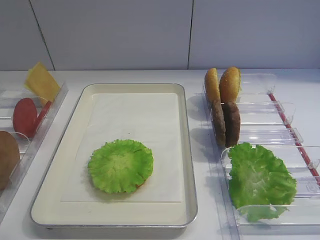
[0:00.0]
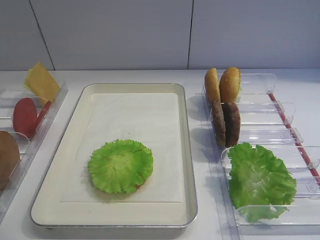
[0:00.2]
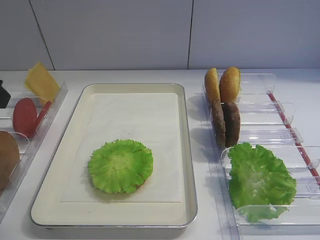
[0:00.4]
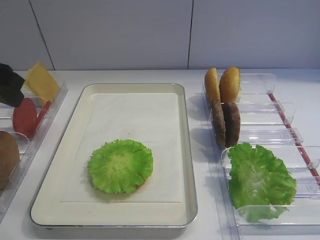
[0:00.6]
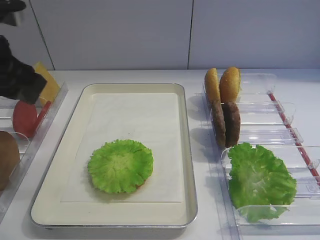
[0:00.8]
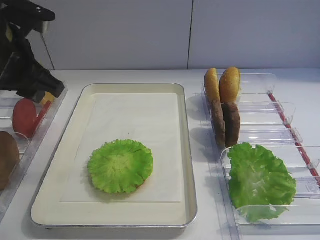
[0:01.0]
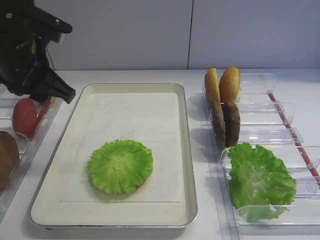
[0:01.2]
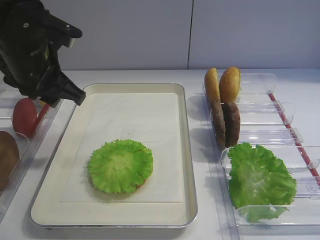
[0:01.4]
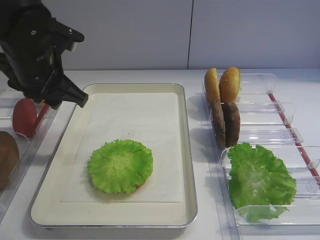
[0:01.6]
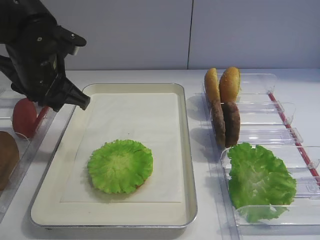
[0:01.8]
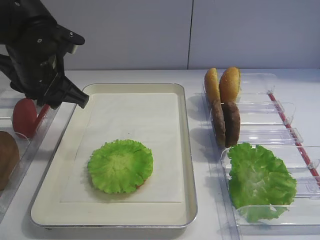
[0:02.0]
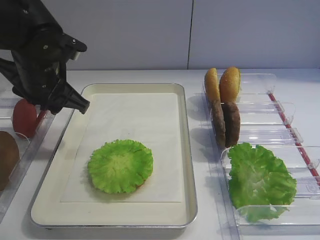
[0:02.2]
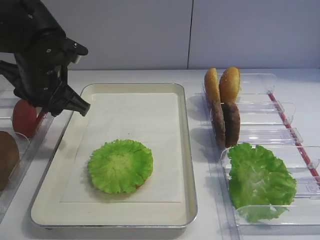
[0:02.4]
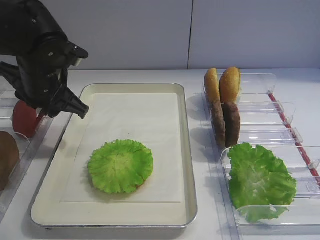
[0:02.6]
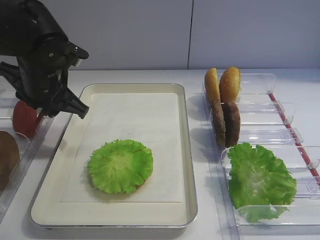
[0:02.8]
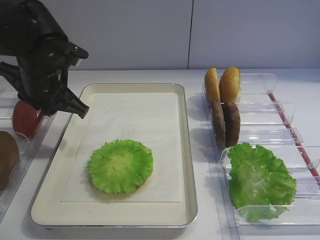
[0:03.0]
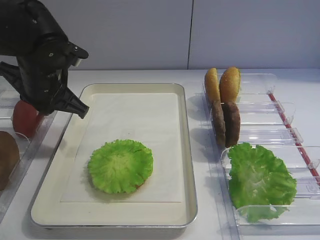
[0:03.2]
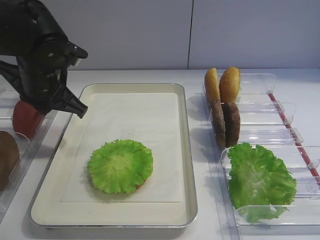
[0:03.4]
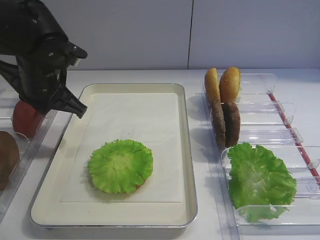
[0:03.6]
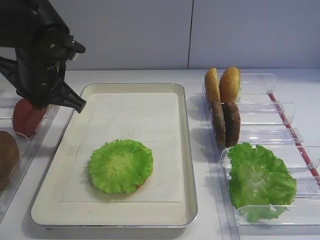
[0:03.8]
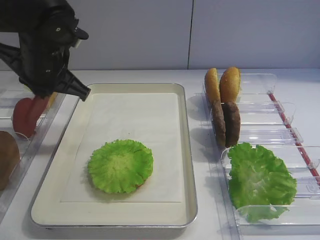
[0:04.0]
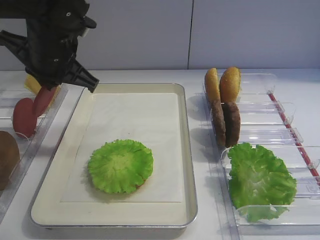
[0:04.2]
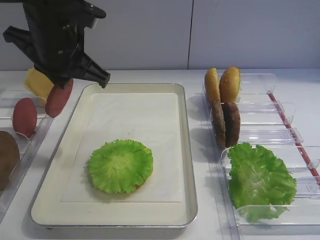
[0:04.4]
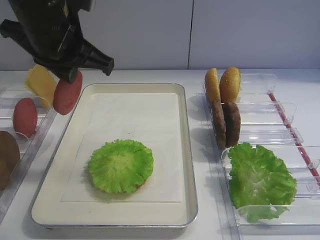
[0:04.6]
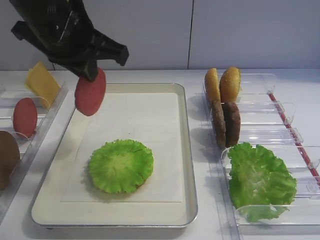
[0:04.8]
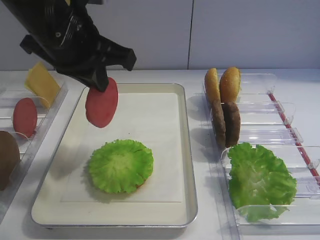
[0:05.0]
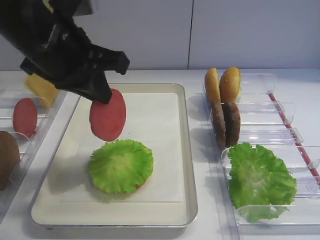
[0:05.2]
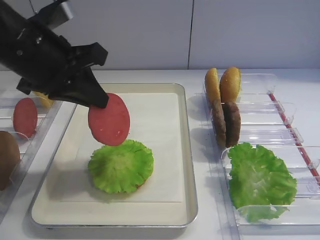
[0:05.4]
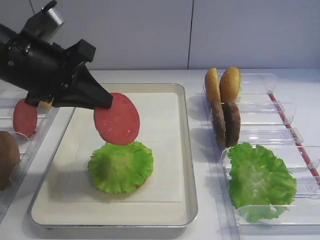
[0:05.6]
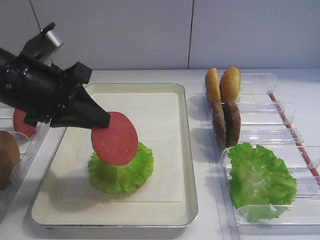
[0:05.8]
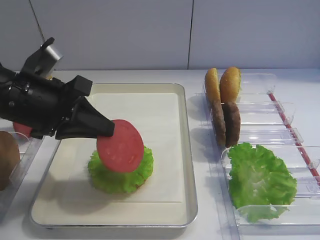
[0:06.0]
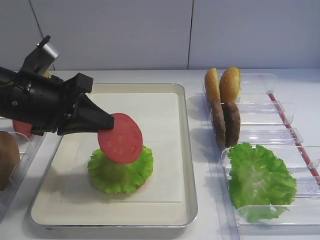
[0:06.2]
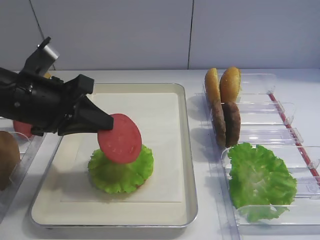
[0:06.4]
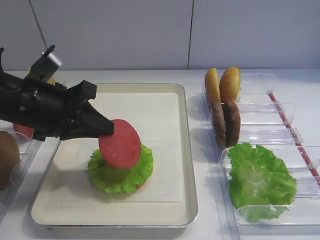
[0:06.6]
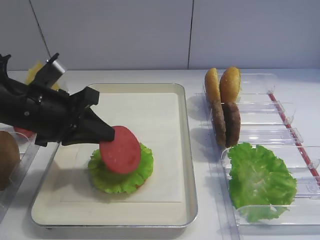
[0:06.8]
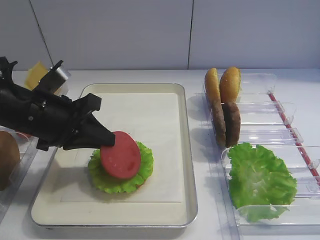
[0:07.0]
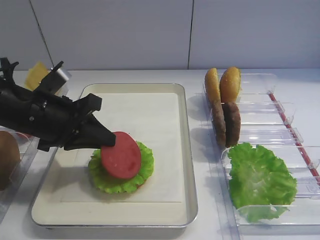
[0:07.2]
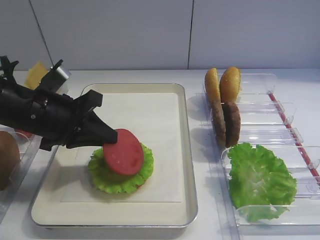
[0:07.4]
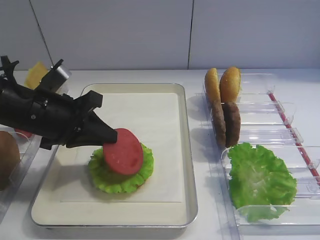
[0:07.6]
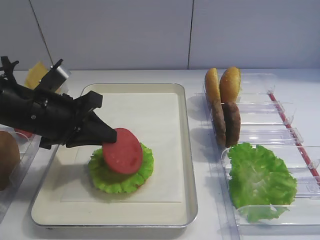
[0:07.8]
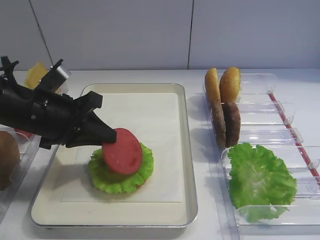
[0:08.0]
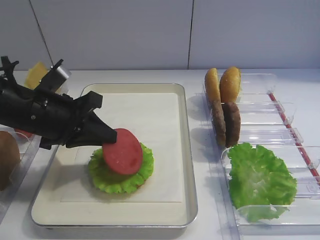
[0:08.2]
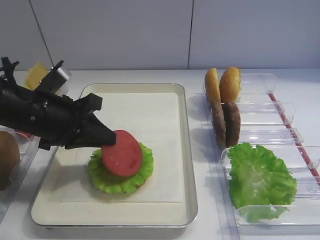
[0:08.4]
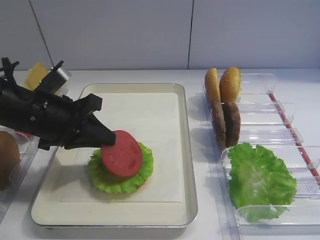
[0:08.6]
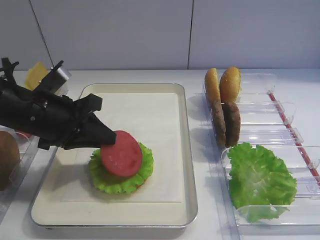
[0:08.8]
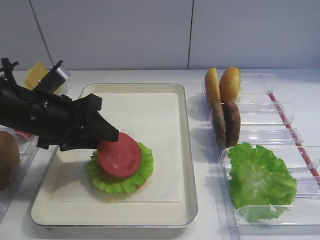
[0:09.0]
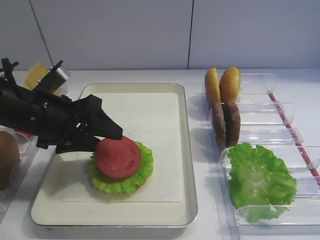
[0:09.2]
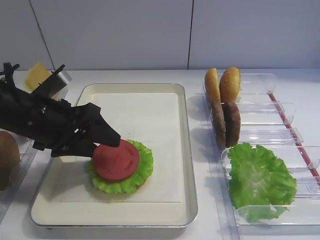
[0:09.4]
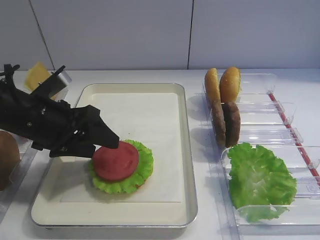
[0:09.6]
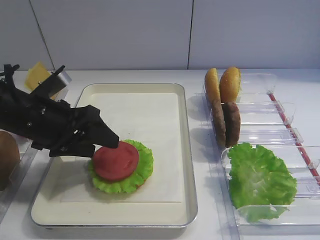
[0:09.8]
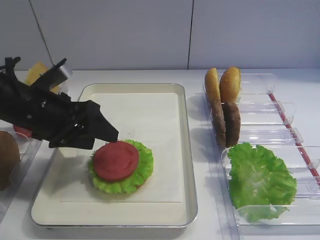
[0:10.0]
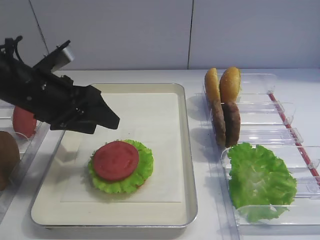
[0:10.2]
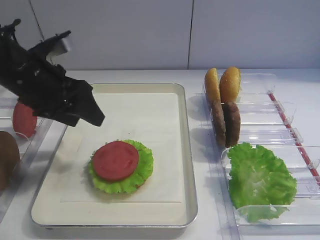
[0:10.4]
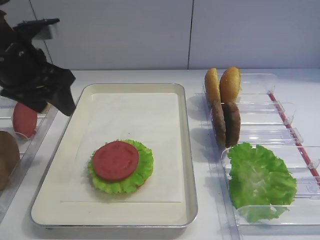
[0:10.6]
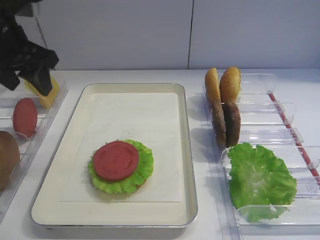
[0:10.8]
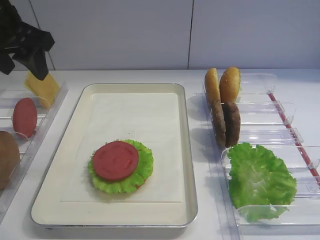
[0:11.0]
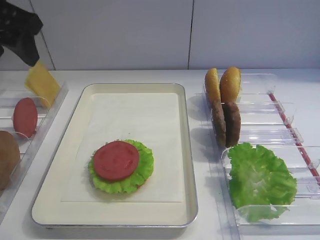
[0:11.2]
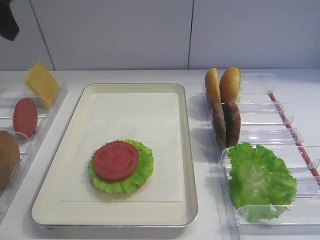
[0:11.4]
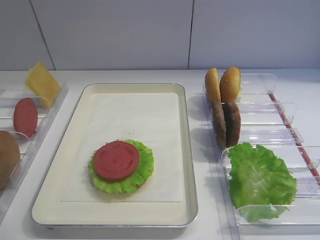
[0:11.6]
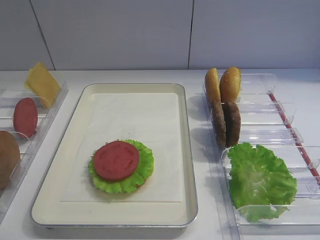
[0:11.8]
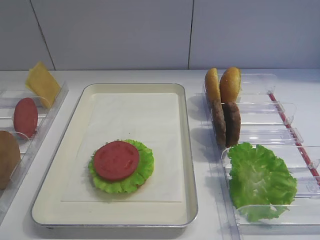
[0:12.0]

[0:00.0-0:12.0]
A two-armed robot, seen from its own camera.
Step, 0:00.0 to 0:04.0: Pick up the tomato slice with the left gripper.
Step, 0:04.2 to 0:10.0: Place the tomato slice on the lettuce leaf with the left gripper.
0:00.0 to 0:01.6: The left gripper is displaced forward and to the right by approximately 25 cm.
0:01.6 to 0:03.0: The grippers stay close to where they were, moving slightly.
0:03.0 to 0:04.4: The left gripper is displaced upward by roughly 5 cm.
0:04.4 to 0:06.0: The left gripper goes roughly 10 cm backward and downward.
0:06.0 to 0:07.6: The grippers move only a little.
0:07.6 to 0:09.0: The left gripper opens.
0:09.0 to 0:10.4: The left gripper shifts by about 5 cm, and opens its fingers.
0:10.4 to 0:12.0: The left gripper heads upward and backward, covering approximately 30 cm.

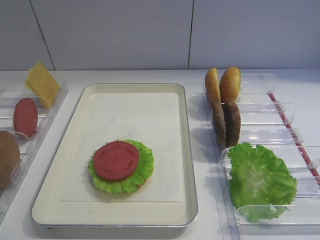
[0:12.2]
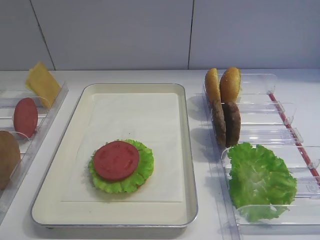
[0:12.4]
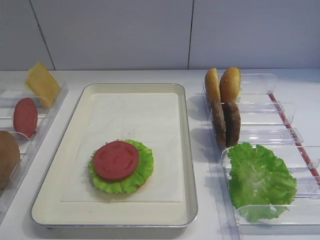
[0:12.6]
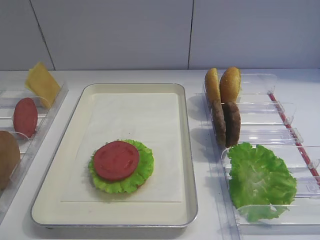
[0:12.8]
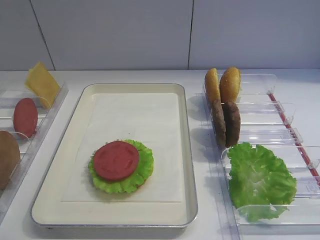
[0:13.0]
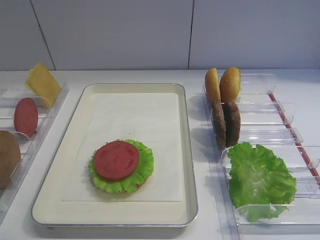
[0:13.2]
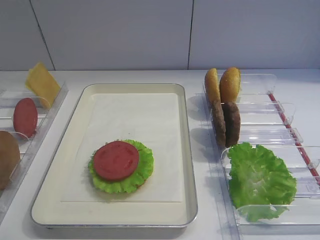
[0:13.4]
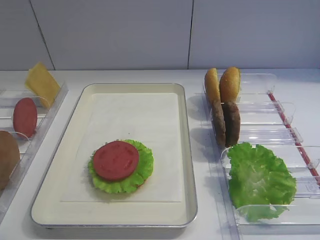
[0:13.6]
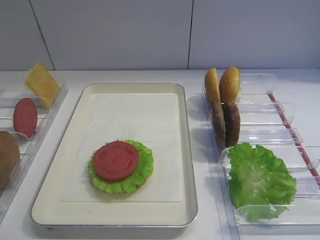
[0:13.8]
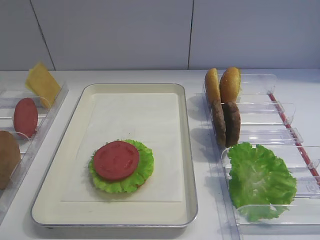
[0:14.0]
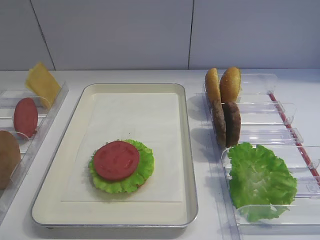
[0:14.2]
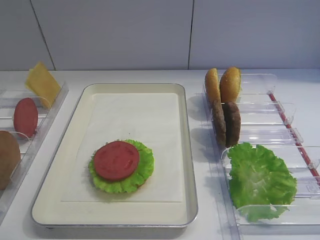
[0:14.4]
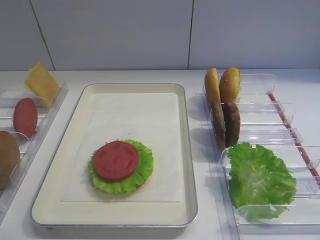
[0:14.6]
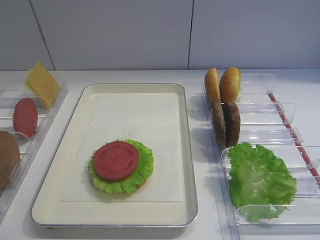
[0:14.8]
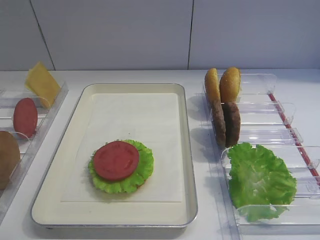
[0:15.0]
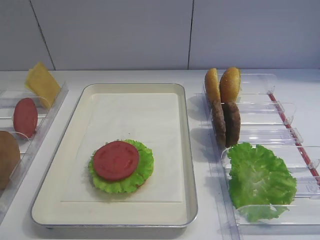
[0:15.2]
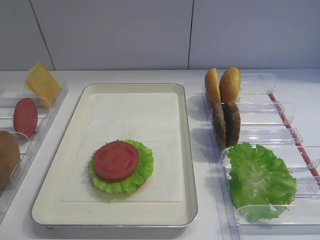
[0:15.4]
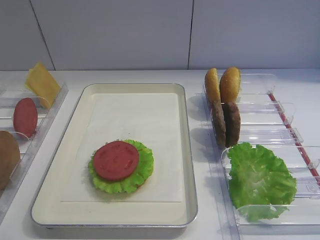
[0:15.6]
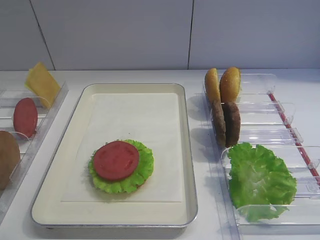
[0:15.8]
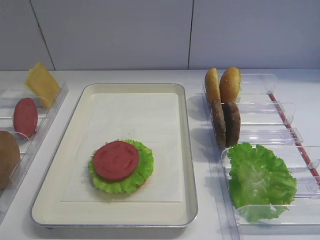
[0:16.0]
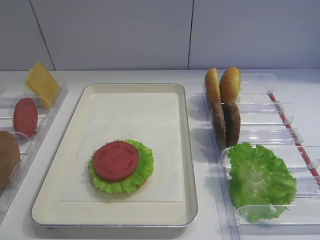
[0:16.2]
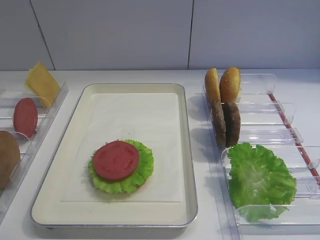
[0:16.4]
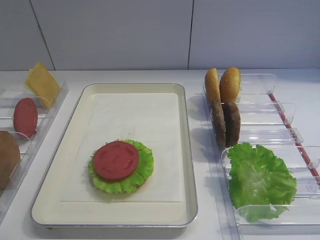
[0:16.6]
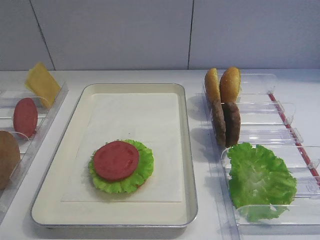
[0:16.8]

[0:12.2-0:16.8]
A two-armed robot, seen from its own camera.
0:15.2 to 0:16.8: Both grippers stay put.

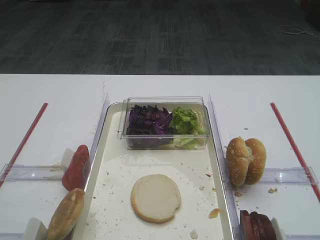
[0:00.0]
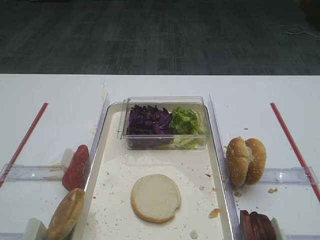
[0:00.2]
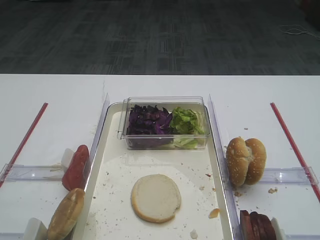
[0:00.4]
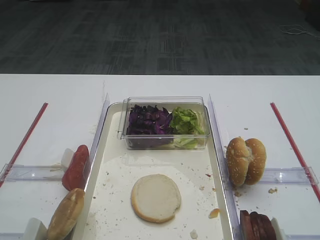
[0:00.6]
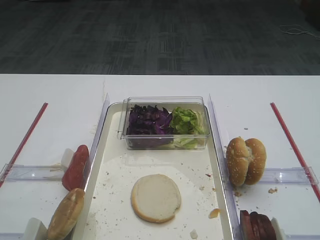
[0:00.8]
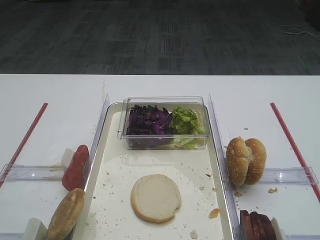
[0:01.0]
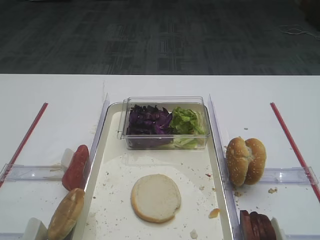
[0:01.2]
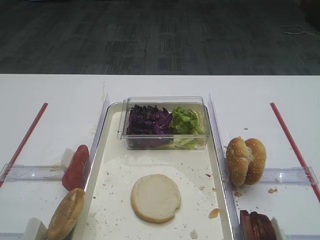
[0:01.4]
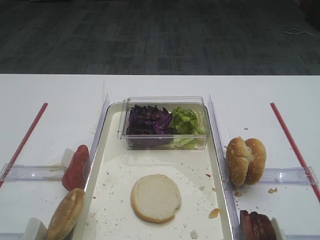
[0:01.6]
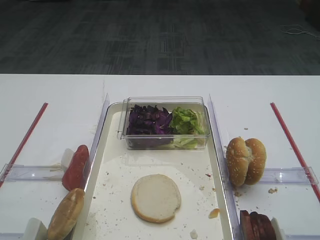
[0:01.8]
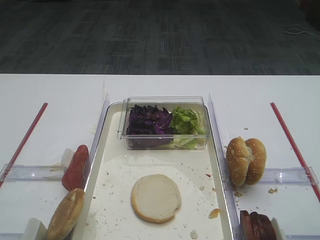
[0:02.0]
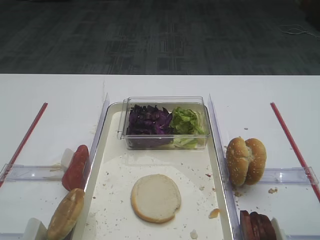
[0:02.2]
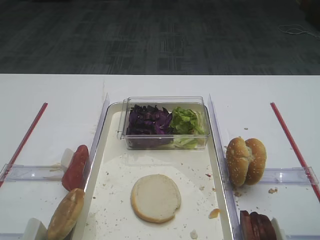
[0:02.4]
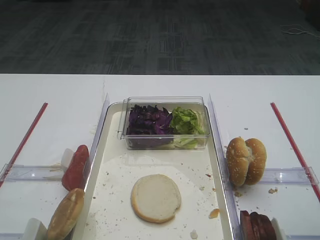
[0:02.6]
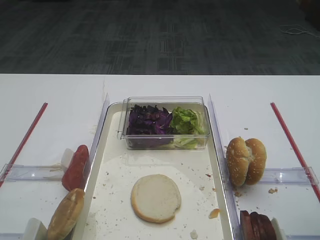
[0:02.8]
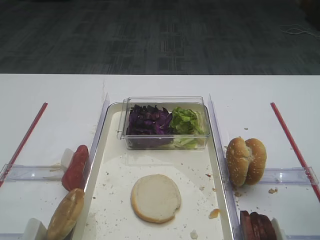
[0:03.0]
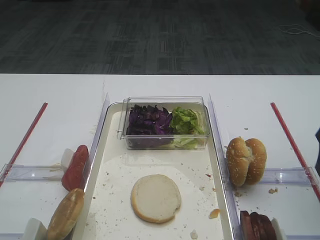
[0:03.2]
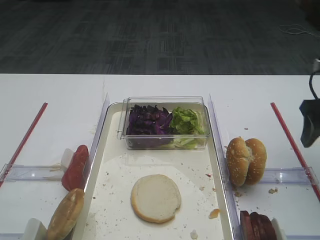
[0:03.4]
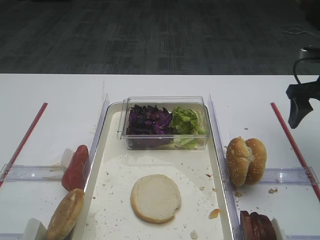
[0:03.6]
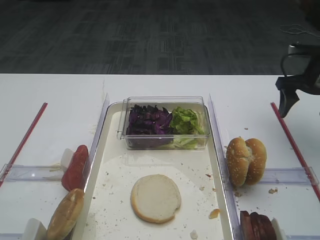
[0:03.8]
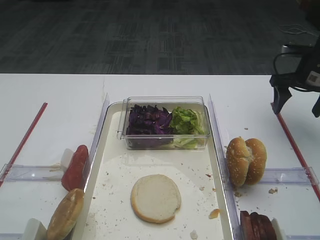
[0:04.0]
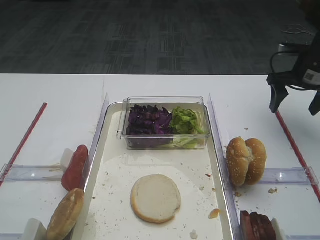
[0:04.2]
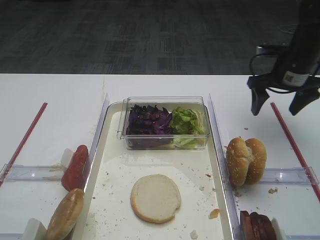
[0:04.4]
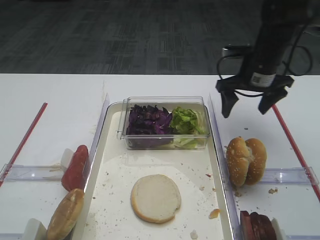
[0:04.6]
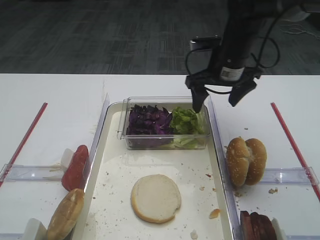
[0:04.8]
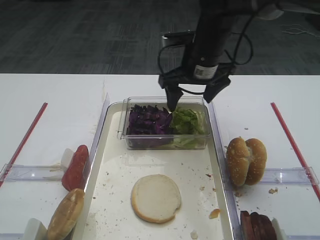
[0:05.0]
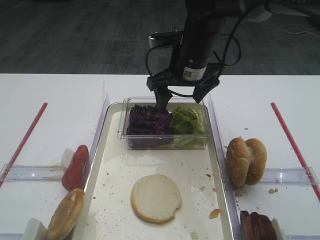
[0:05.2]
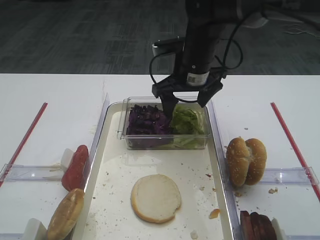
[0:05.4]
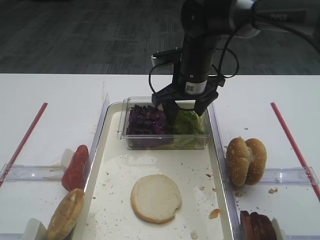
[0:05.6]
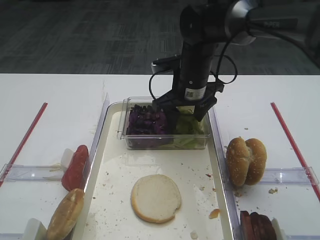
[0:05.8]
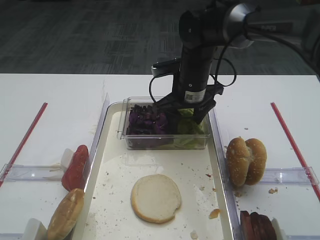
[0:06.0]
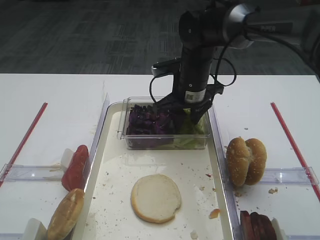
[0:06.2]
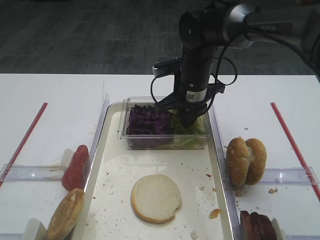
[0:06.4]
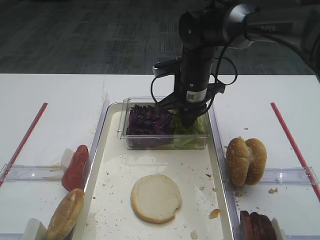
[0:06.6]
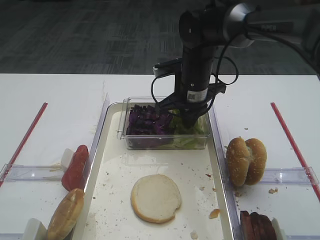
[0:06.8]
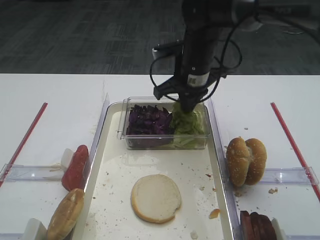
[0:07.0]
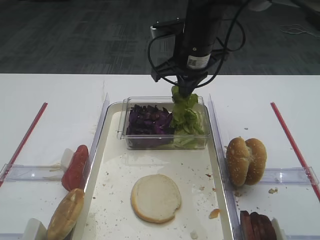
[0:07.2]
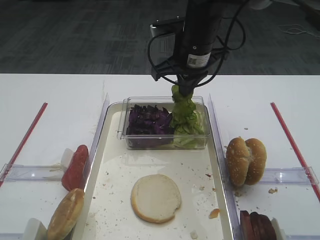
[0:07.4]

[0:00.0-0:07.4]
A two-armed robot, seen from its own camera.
Step, 0:00.0 to 0:07.4: Pick up the lettuce leaf with the right gripper.
0:01.4 to 0:03.0: The right gripper travels forward by about 15 cm.
0:03.0 to 0:04.4: The right gripper travels forward by approximately 25 cm.
0:04.4 to 0:06.0: The right gripper shifts about 20 cm to the left.
0:06.0 to 0:07.4: The right gripper heads upward, covering approximately 10 cm, and closes its fingers.
